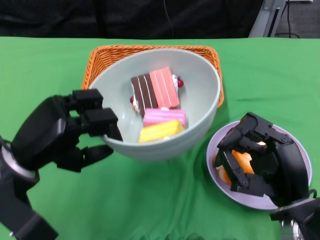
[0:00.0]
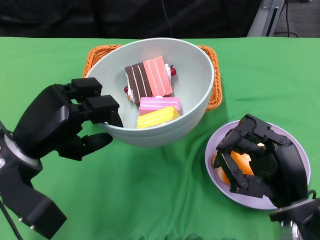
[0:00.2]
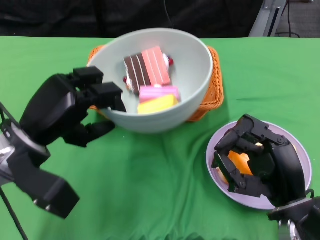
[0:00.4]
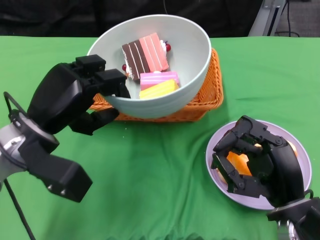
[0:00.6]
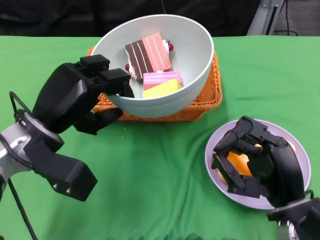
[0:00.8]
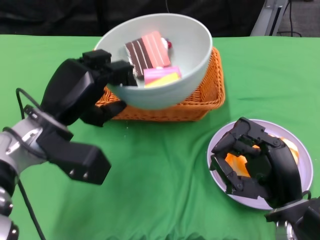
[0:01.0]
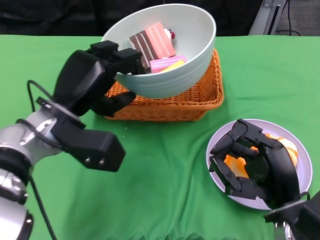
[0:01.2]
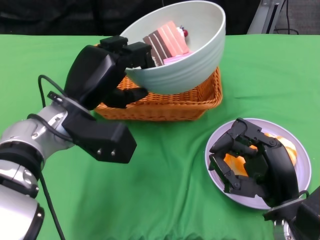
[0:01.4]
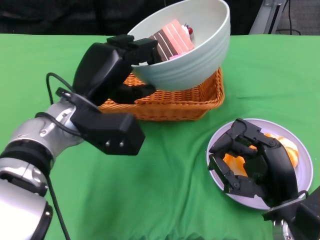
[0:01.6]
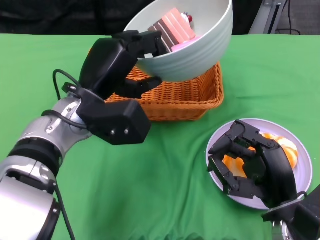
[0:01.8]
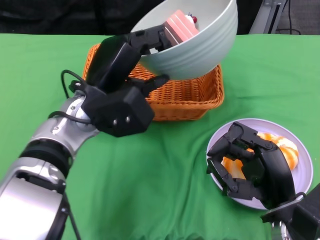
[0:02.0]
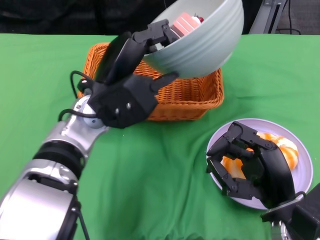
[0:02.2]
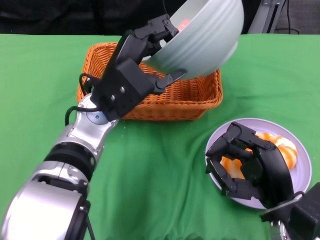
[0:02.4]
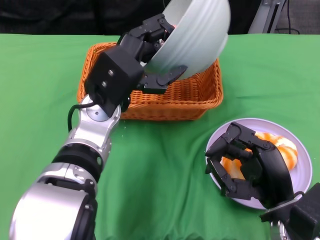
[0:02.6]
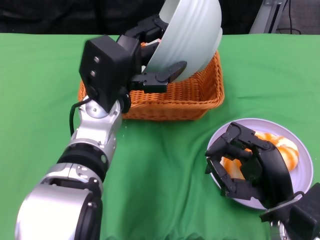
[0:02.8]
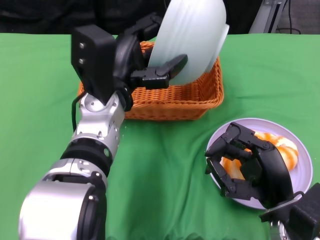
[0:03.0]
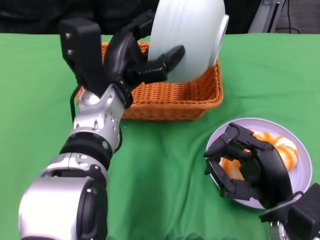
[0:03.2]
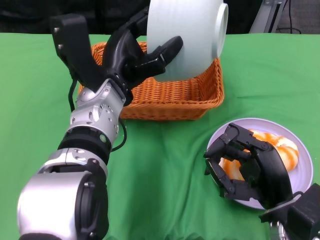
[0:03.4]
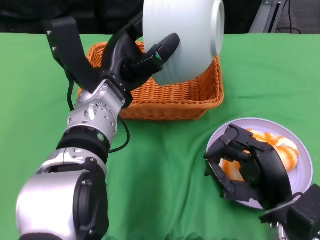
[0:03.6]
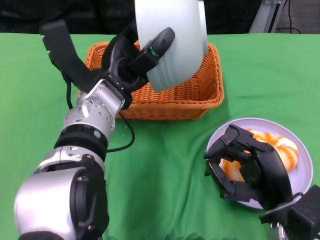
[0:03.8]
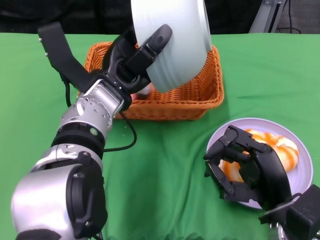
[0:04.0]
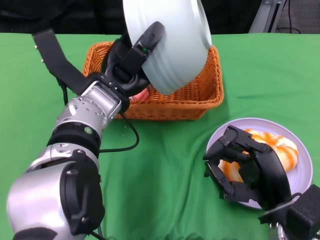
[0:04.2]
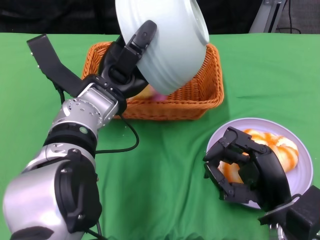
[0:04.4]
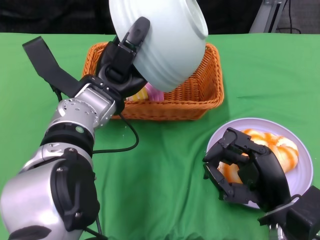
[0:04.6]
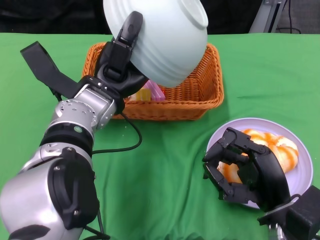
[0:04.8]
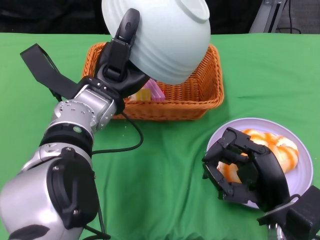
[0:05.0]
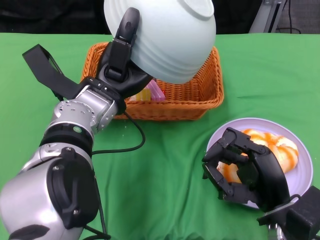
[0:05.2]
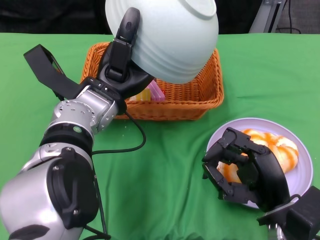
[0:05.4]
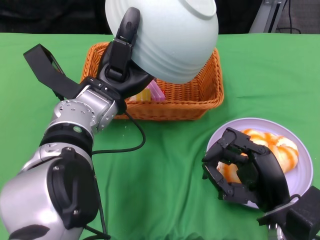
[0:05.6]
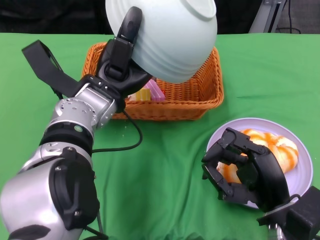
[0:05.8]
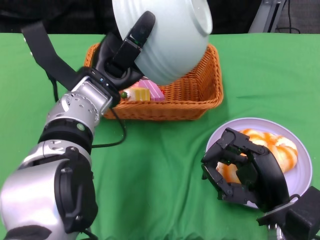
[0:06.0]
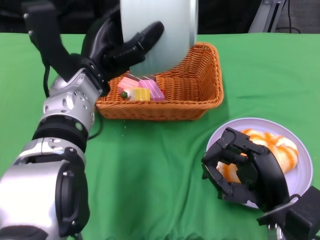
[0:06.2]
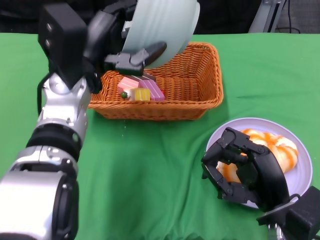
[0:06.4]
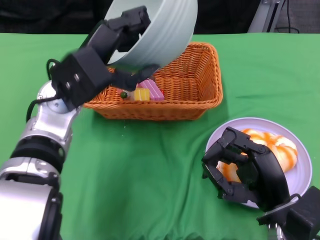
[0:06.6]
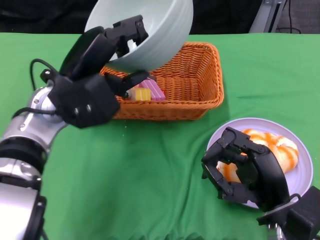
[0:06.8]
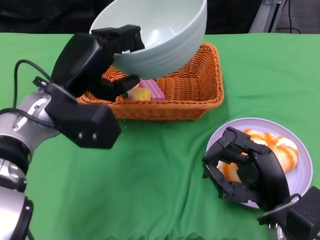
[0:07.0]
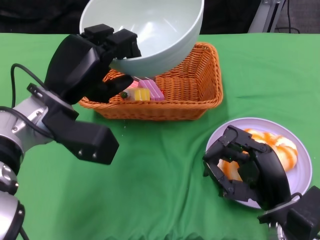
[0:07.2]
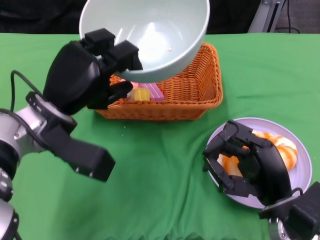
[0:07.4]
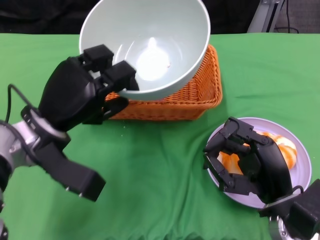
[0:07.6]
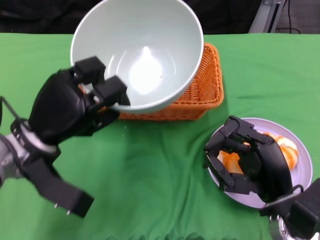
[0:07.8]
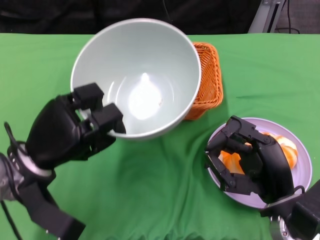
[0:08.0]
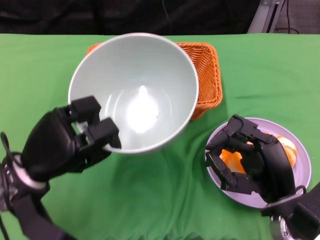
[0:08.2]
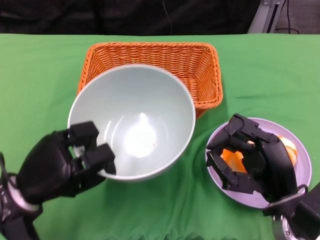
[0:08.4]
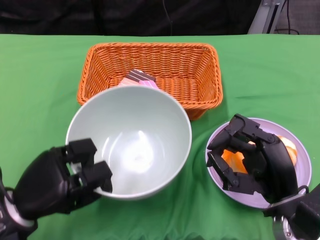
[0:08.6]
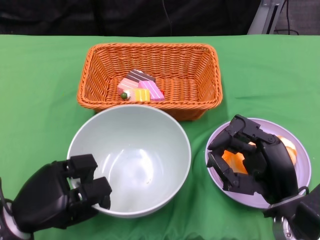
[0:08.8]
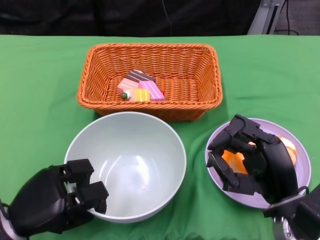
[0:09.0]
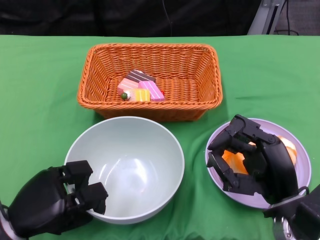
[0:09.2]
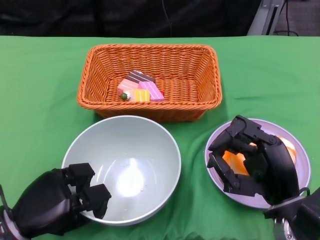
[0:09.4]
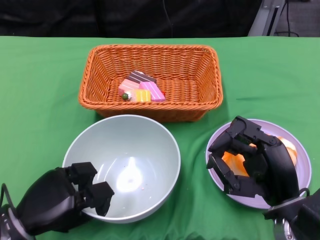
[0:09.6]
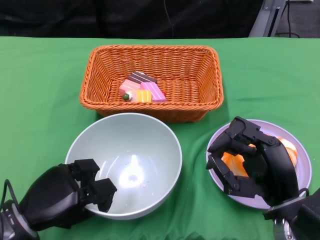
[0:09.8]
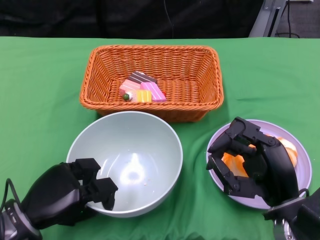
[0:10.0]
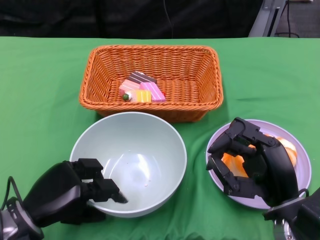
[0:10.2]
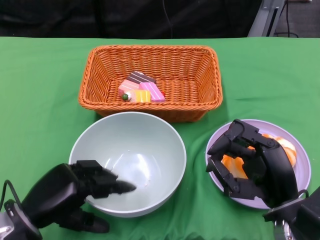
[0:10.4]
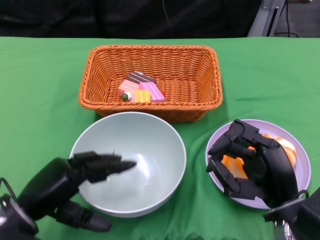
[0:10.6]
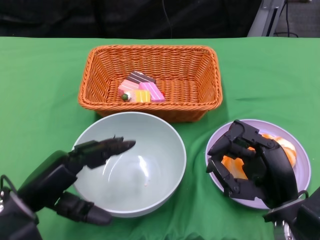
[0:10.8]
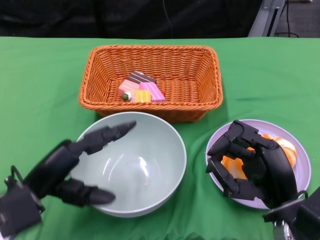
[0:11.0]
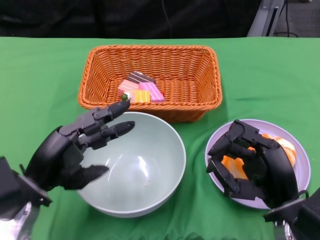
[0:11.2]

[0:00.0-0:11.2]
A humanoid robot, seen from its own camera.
Step, 0:00.0 to 0:04.6: Pour the cake into the basket with the left gripper.
Step, 0:04.8 to 0:10.2: Place the bowl on the table with the left gripper.
0:00.0 to 0:01.6: The left hand goes roughly 10 cm to the right and forward.
0:06.4 to 0:08.0: The left hand travels downward, to the left and backward by some 15 cm.
0:08.0 to 0:09.6: The left hand heads downward and backward, covering approximately 10 cm.
0:09.6 to 0:11.2: The left hand goes approximately 5 cm upward.

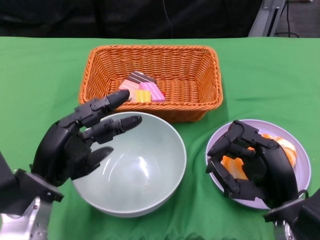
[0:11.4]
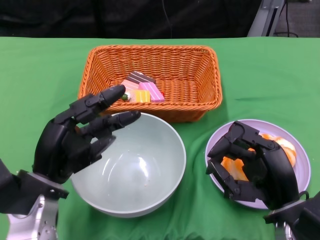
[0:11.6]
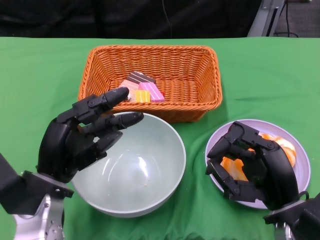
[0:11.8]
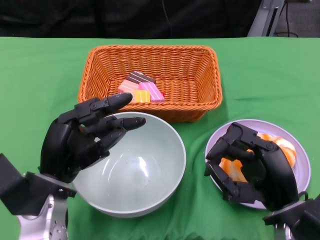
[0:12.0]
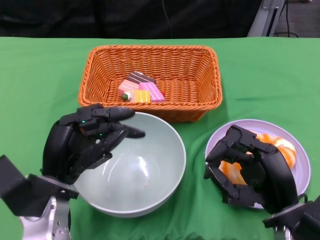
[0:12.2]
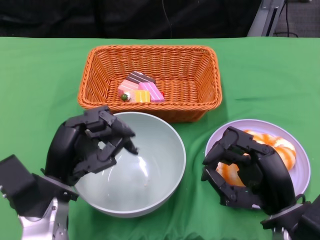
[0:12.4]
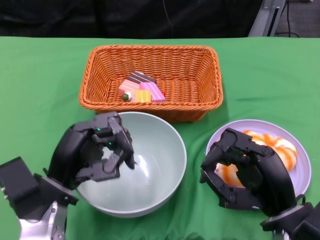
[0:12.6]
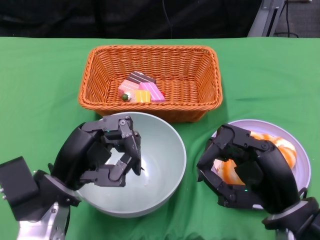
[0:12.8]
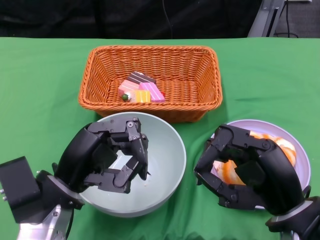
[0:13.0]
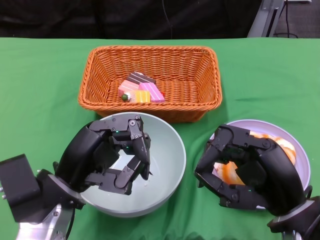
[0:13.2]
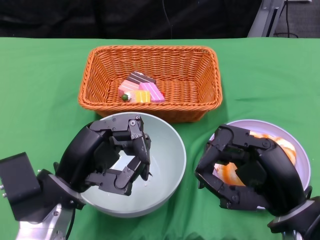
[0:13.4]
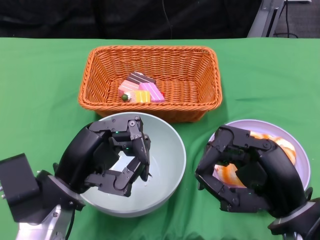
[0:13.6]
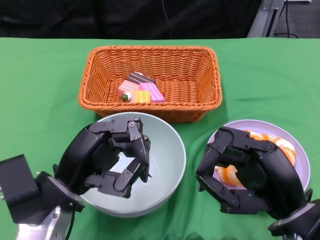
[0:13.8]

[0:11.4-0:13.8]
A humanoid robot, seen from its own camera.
0:11.4 to 0:13.8: The hands make only small movements.
